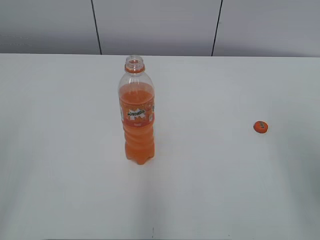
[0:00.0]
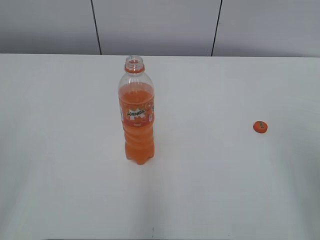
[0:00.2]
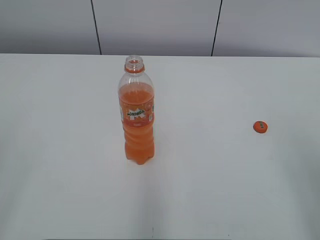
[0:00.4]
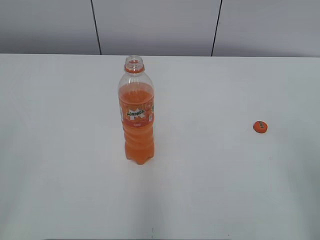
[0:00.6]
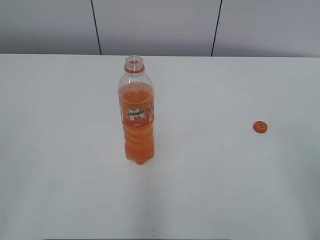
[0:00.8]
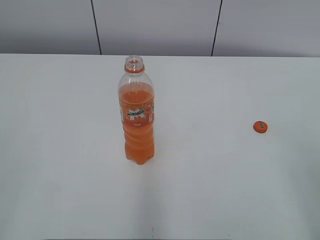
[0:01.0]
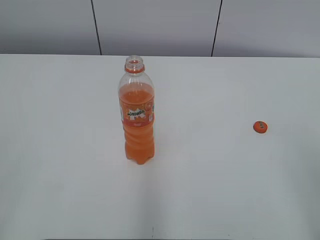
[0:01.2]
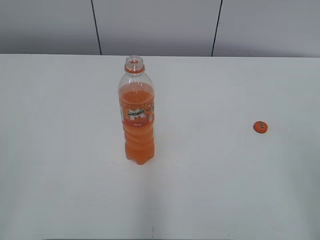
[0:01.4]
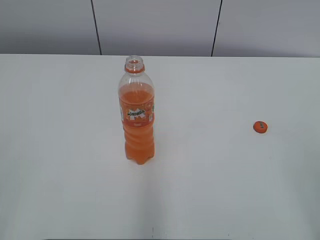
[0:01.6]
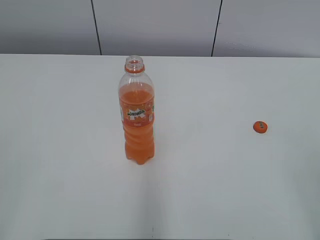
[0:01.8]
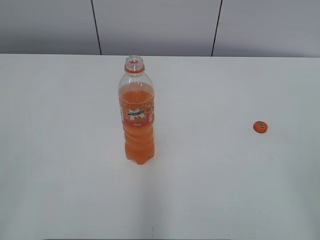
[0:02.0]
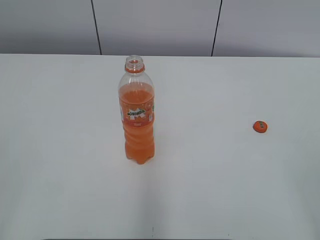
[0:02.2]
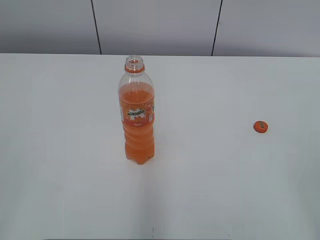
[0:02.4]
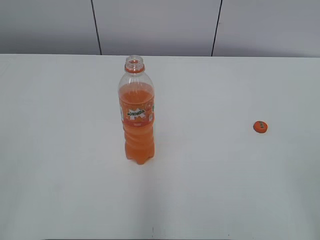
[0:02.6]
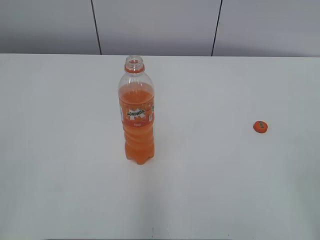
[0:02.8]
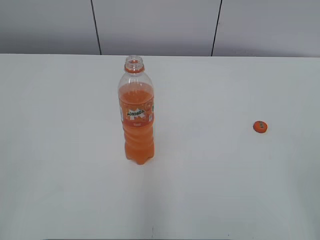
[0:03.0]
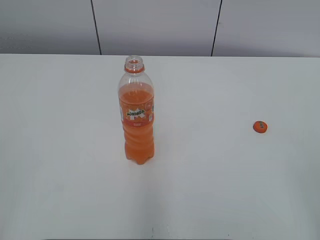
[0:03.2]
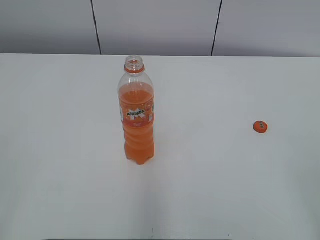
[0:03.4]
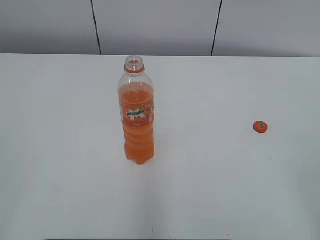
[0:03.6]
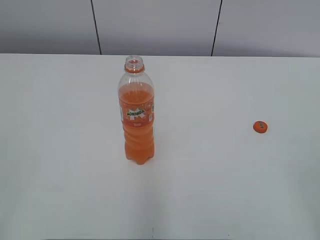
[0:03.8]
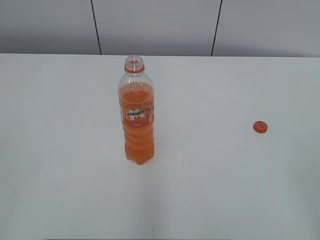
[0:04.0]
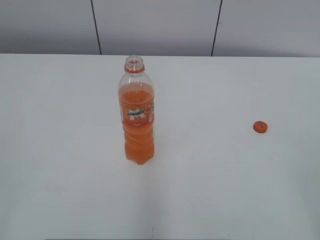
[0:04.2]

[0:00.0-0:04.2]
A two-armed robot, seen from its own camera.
0:02.8 to 0:04.2: Neither gripper changes place.

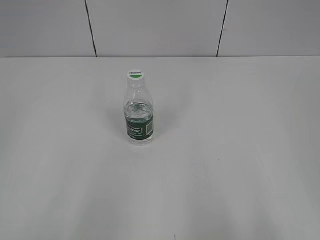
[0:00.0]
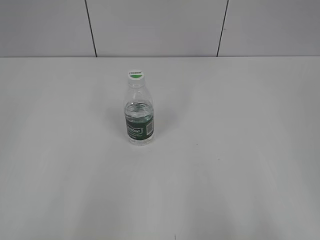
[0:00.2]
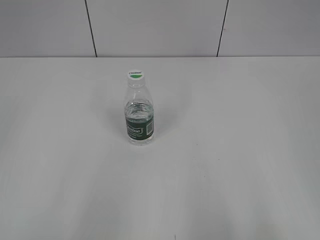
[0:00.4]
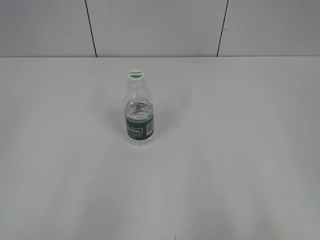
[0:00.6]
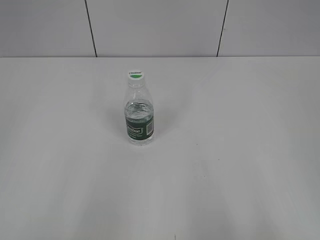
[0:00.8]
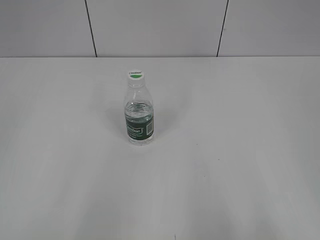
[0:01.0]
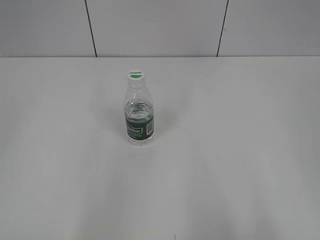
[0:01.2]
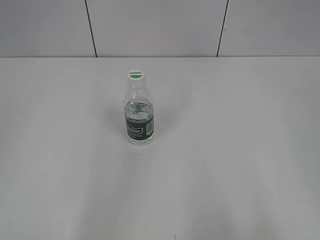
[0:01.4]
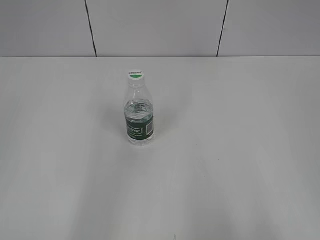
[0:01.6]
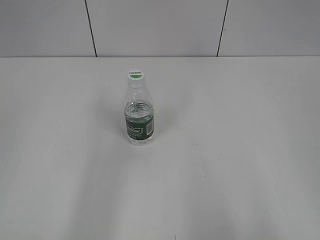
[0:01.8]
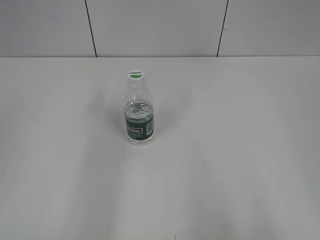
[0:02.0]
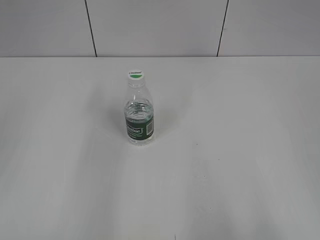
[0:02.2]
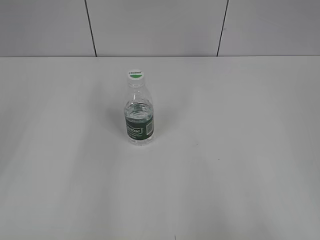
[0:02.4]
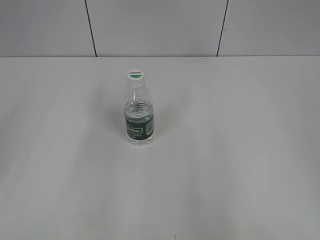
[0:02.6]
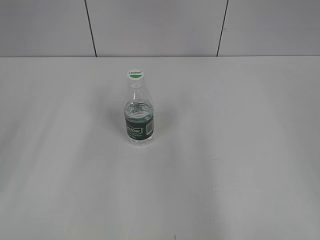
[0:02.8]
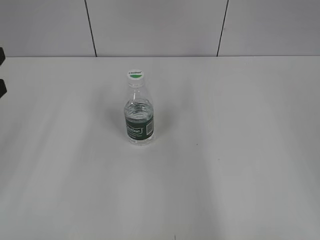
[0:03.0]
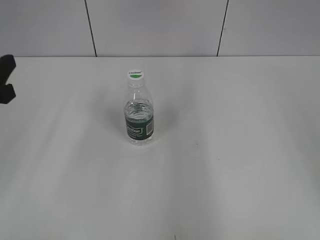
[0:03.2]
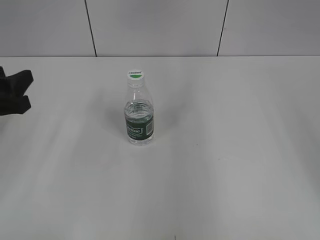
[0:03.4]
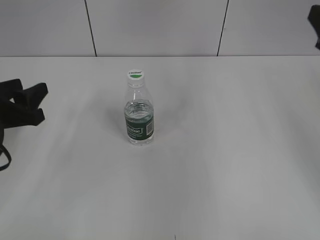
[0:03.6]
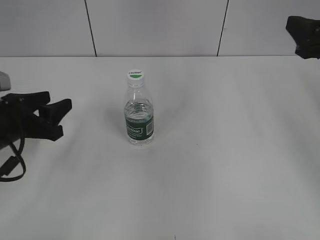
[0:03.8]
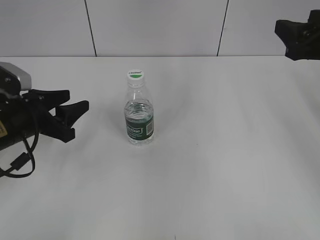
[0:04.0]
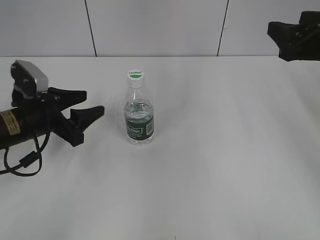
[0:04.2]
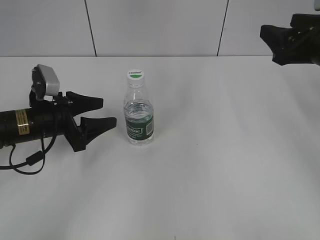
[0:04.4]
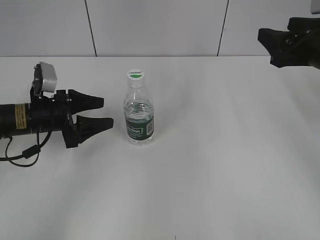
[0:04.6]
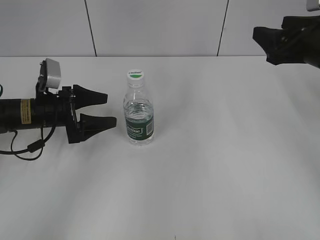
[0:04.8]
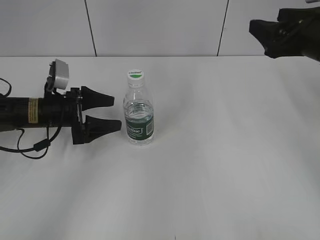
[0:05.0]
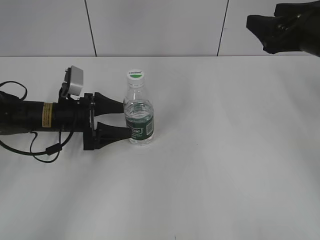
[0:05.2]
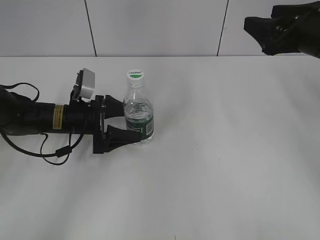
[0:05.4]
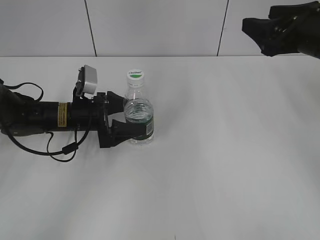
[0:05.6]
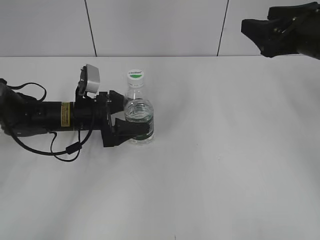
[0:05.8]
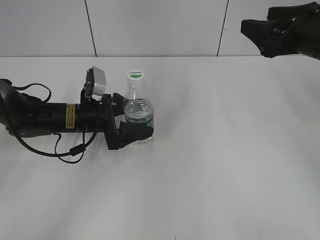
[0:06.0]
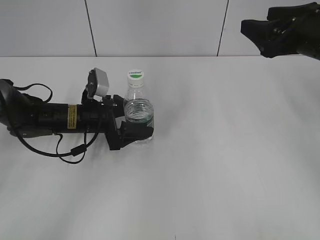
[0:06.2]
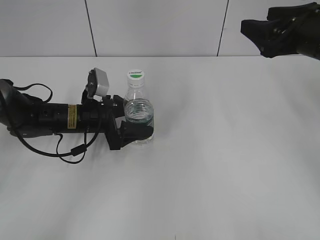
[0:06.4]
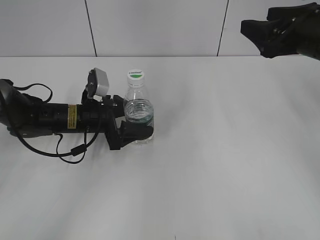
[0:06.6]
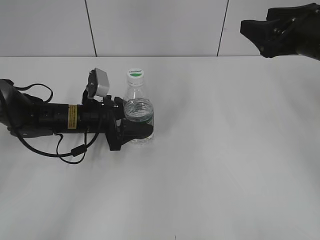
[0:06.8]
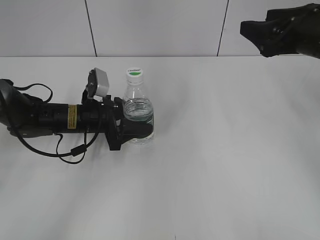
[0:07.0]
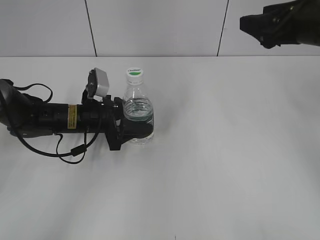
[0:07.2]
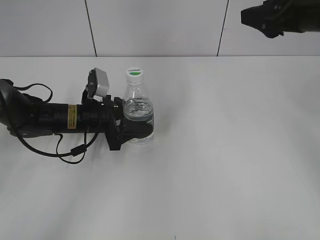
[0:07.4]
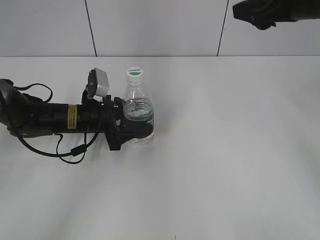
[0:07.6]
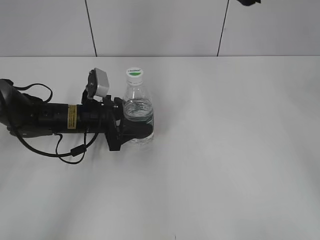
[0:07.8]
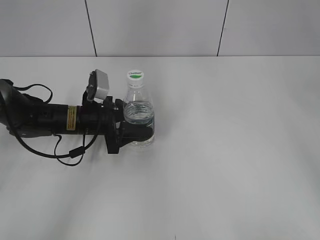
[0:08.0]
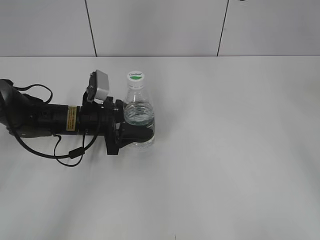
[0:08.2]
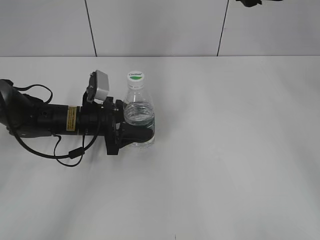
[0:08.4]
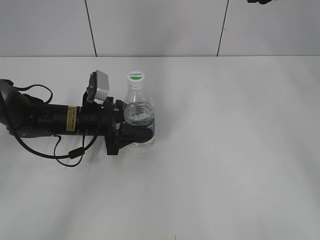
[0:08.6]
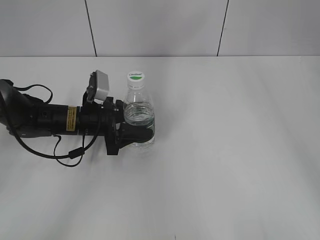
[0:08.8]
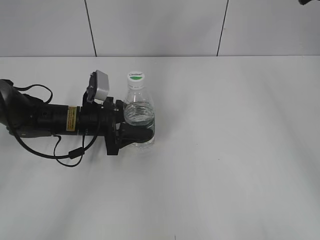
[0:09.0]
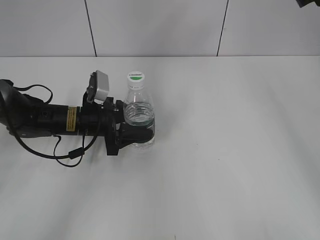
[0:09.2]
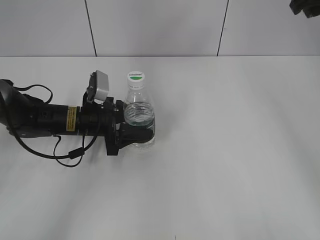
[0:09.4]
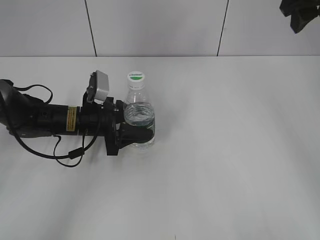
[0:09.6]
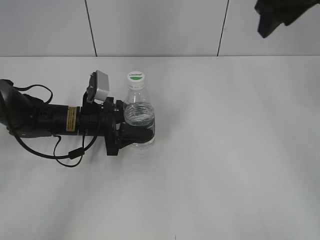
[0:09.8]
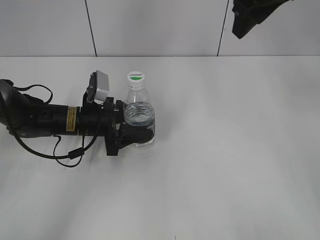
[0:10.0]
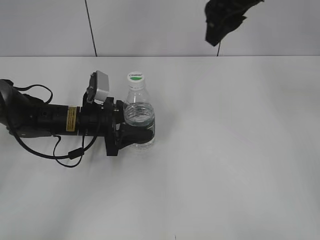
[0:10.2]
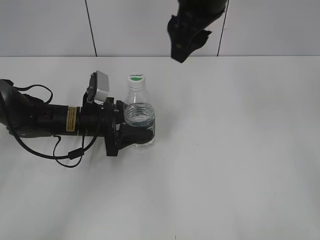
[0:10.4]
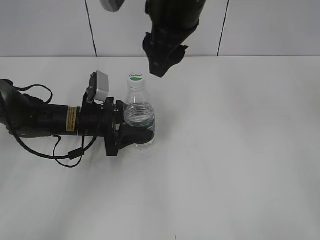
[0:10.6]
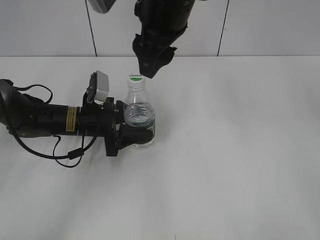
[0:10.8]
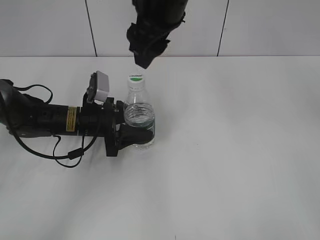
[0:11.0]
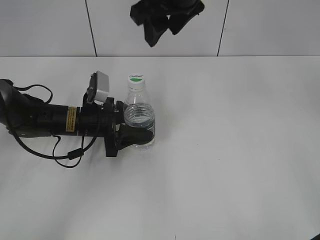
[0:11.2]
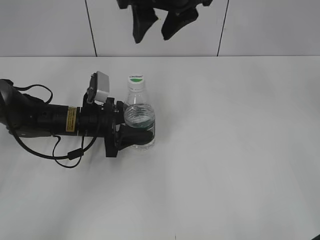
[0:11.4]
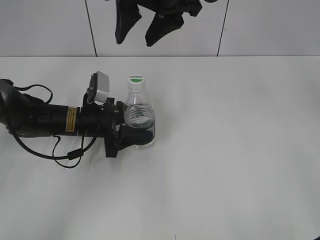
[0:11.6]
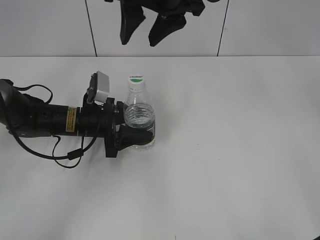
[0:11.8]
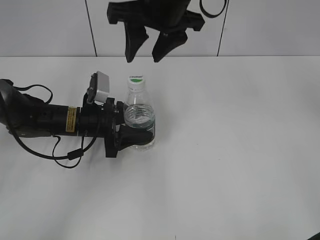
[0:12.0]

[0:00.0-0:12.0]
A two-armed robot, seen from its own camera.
Step, 0:00.0 to 0:06.8: Grasp the bottle and move it to the center of the table with the left gripper.
0:03.0 to 0:04.4: The left gripper is displaced downward, forward and to the right by some 15 cm, and opens its fingers. Meanwhile the right gripper heads forward and downward, covering about 20 cm.
0:04.4 to 0:06.0: The left gripper heads to the right, covering approximately 5 cm, and opens its fingers.
0:06.0 to 0:07.6: The right gripper changes place by about 5 cm; the left gripper closes its fingers.
0:07.6 to 0:09.0: The right gripper ends up approximately 5 cm from where it was.
0:09.0 to 0:10.4: The right gripper travels to the left by approximately 20 cm.
0:10.4 to 0:12.0: The right gripper shifts by some 5 cm.

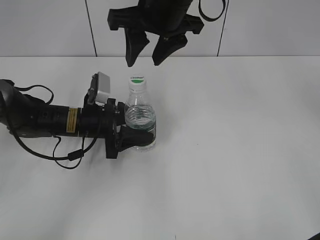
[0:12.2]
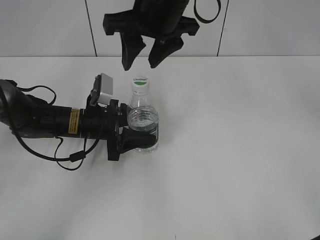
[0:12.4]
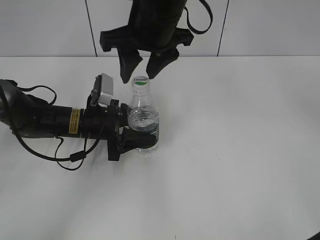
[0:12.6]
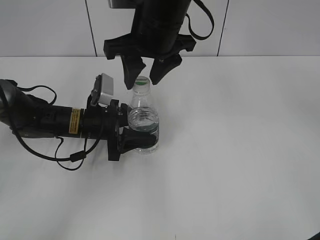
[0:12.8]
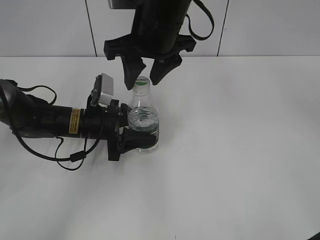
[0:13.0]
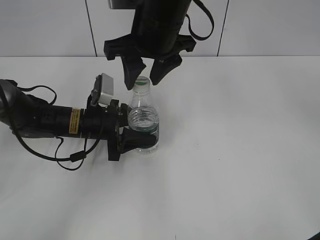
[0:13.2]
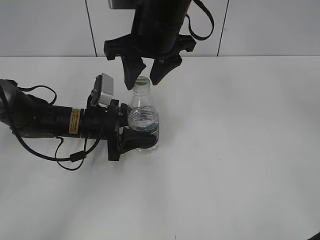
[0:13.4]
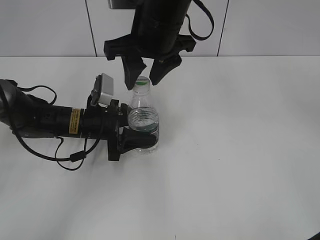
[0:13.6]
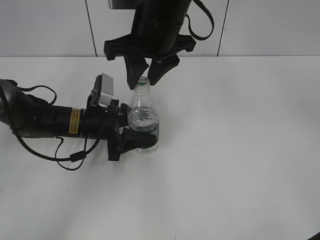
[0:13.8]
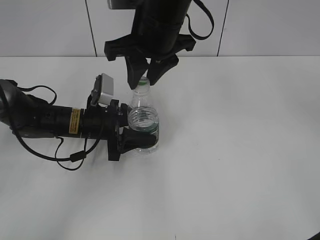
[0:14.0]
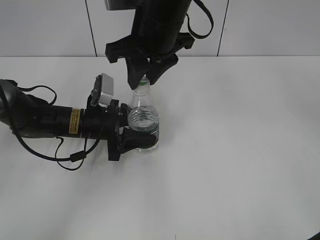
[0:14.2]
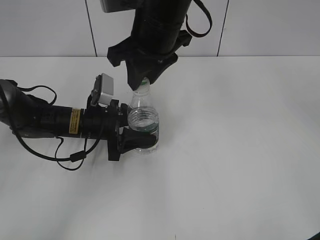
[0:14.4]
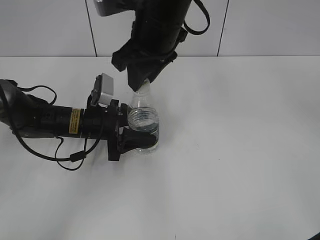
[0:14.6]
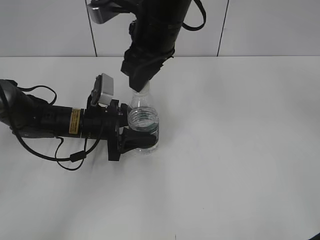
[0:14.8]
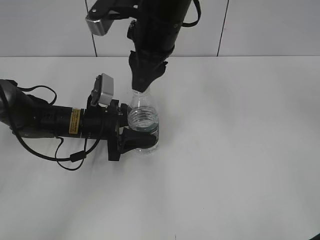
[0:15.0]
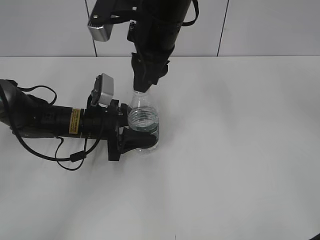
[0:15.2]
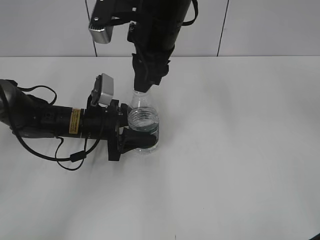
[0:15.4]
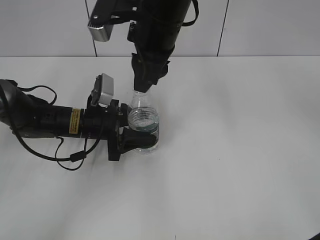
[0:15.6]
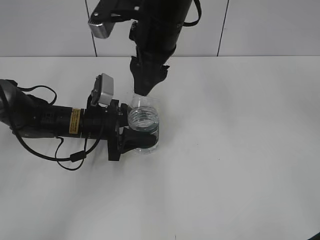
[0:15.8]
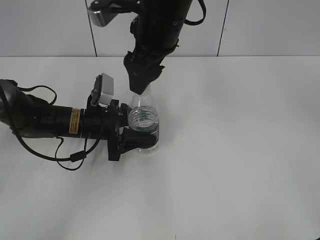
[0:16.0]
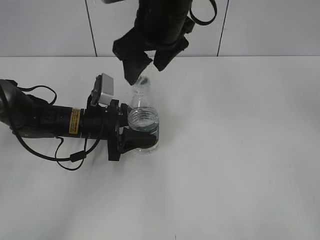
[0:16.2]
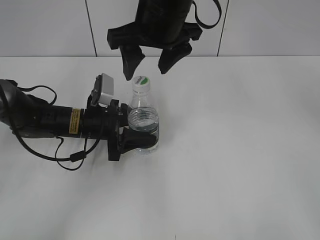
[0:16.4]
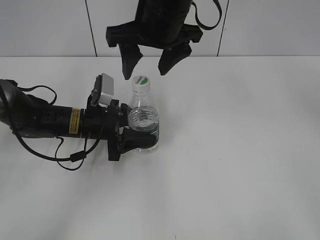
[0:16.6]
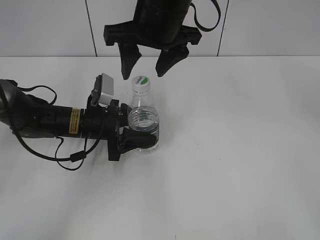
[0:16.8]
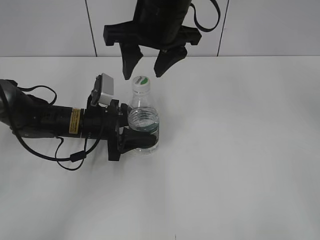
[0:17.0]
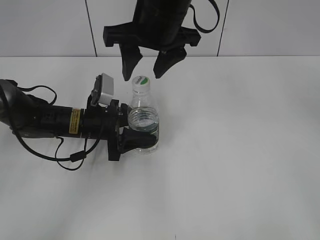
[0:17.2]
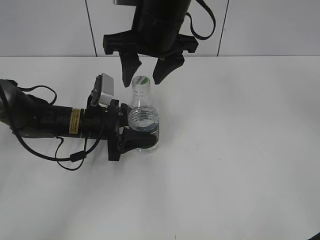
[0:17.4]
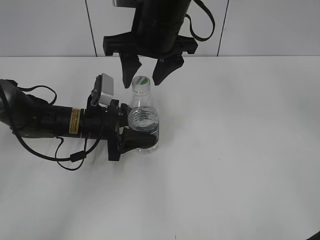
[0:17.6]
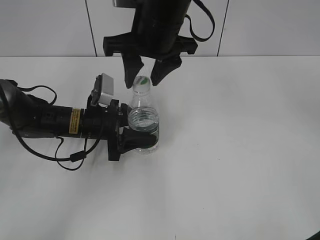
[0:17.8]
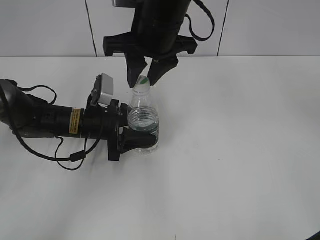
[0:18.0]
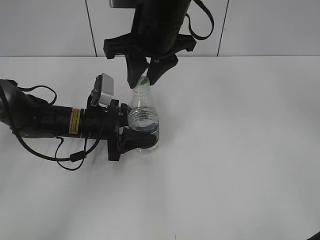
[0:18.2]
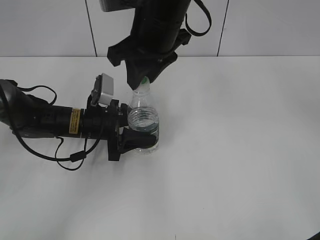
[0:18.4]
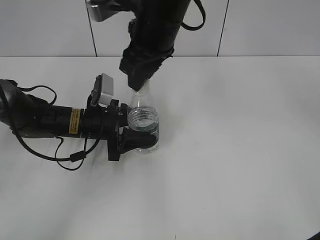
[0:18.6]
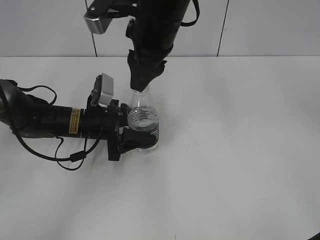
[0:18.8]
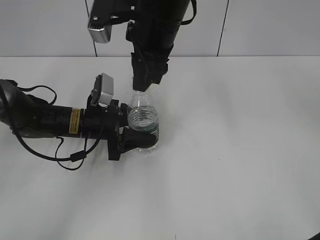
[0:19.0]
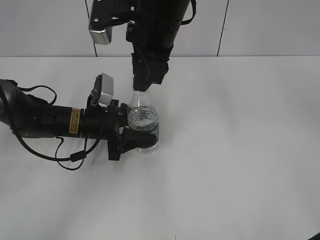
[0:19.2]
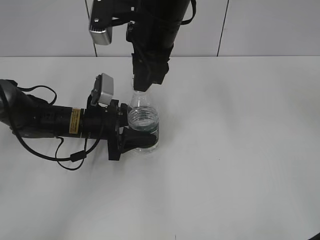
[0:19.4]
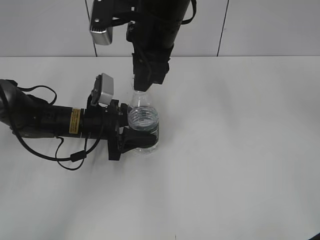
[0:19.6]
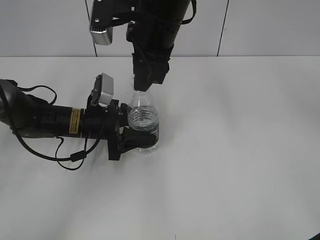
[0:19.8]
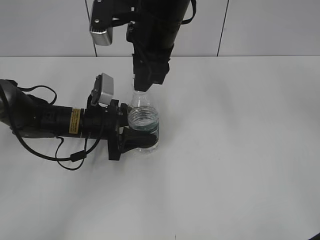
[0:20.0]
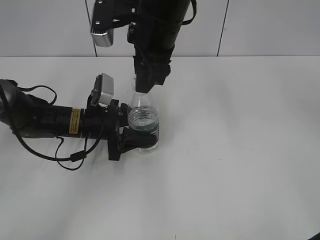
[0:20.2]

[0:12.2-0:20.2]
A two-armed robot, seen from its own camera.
0:12.2 to 0:13.8: The grippers stay close to where they were, moving slightly.
0:15.4 to 0:17.0: The right gripper opens up.
0:17.0 to 0:18.6: The right gripper closes.
